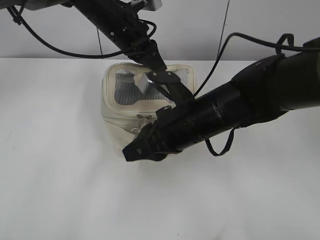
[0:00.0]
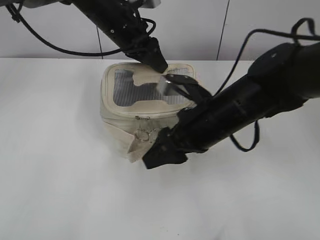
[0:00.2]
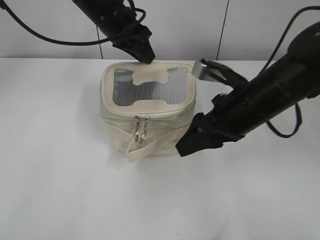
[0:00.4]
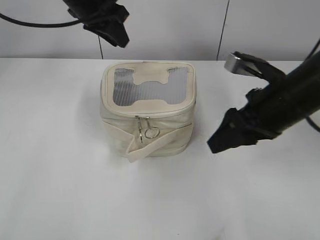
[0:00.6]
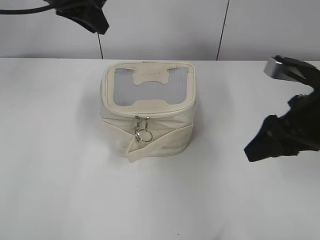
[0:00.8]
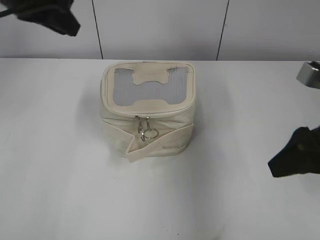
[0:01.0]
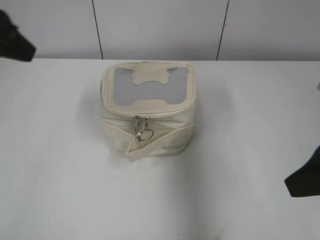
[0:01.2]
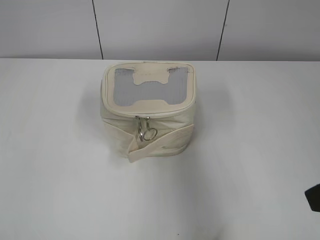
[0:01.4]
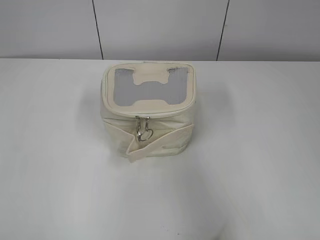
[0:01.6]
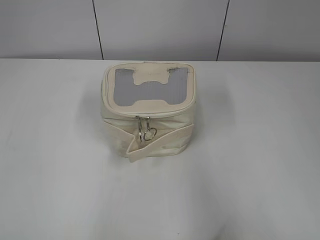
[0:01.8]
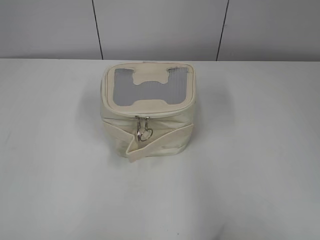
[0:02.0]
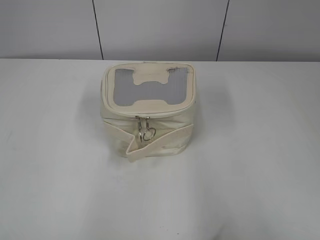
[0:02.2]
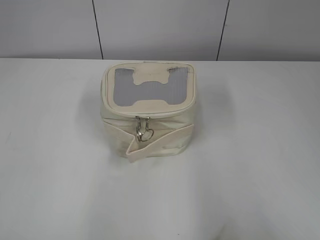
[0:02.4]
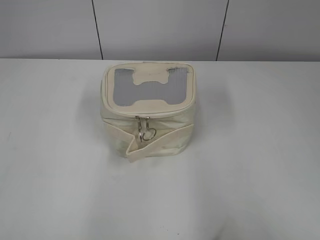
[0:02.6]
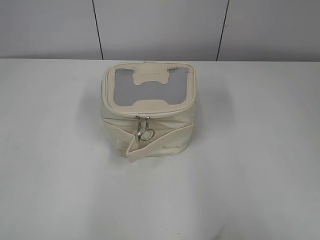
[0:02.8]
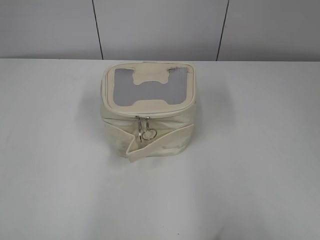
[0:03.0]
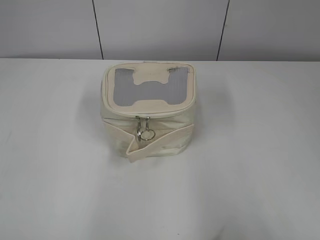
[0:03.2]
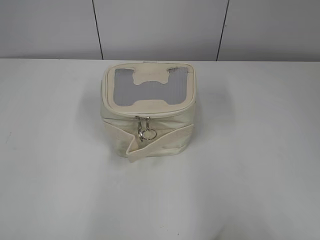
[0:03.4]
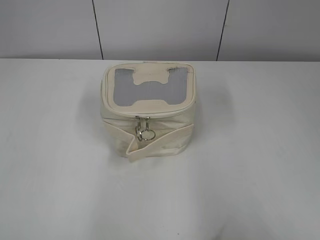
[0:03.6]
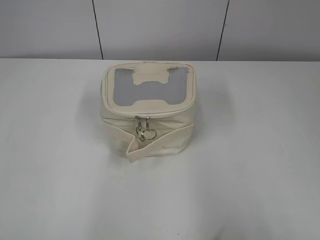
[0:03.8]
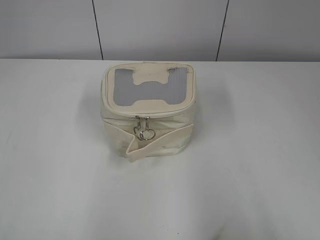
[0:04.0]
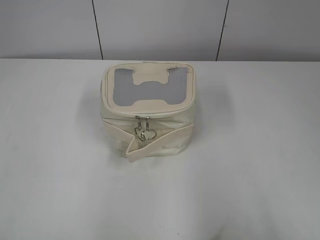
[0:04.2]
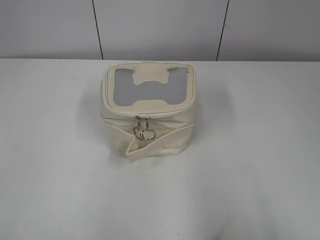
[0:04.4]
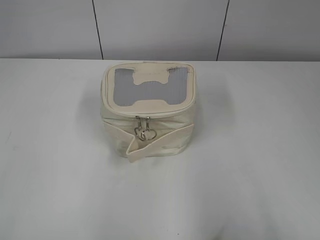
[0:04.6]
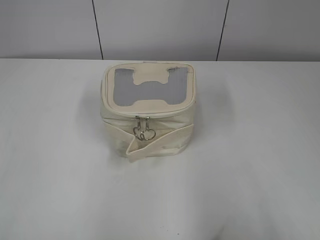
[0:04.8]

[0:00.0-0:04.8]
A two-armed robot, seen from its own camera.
0:00.0 to 0:01.6: The left gripper travels backward and to the left by approximately 40 cm. Meanwhile the right gripper is displaced to the right, backward and upward by about 30 cm, and opens up.
0:01.6 to 0:03.2: Both grippers move backward, roughly 10 cm.
